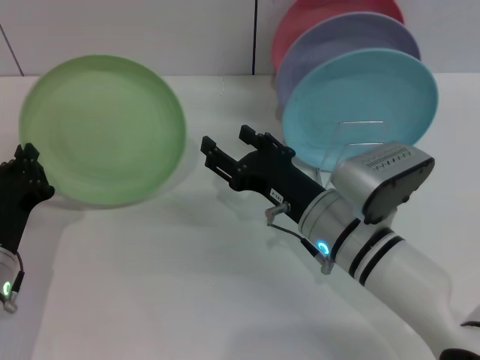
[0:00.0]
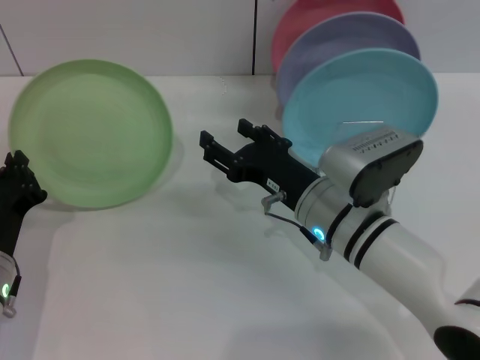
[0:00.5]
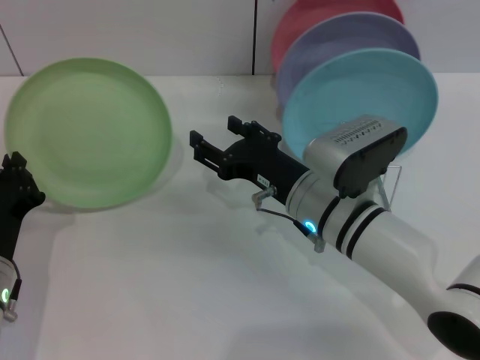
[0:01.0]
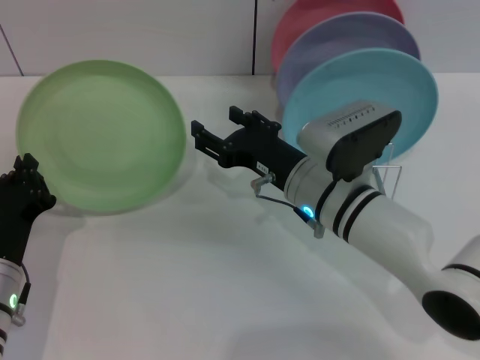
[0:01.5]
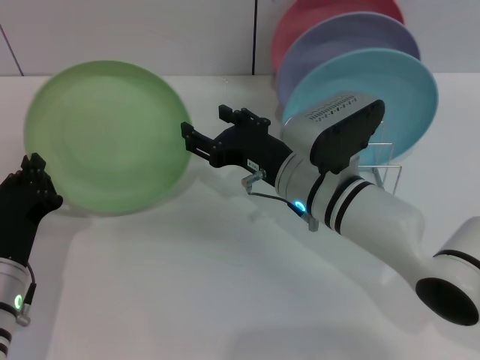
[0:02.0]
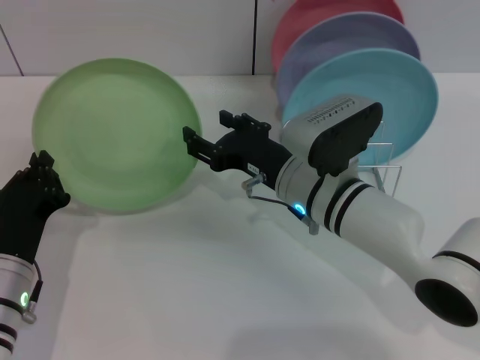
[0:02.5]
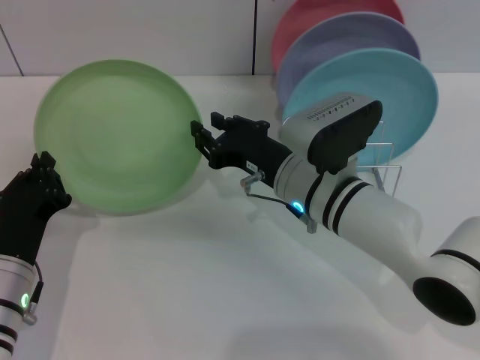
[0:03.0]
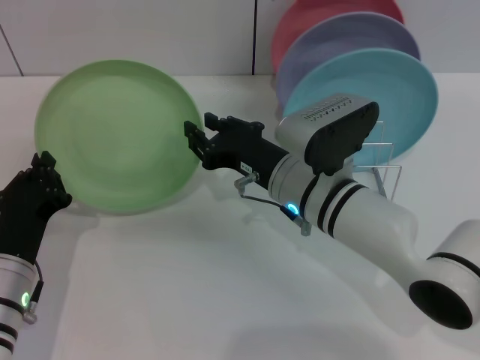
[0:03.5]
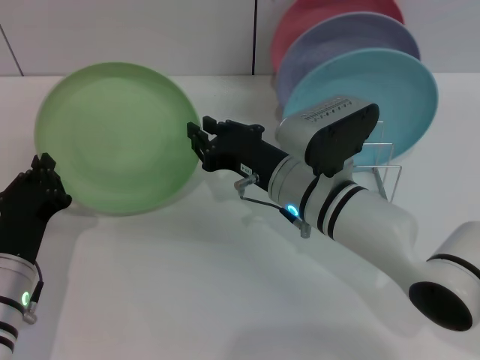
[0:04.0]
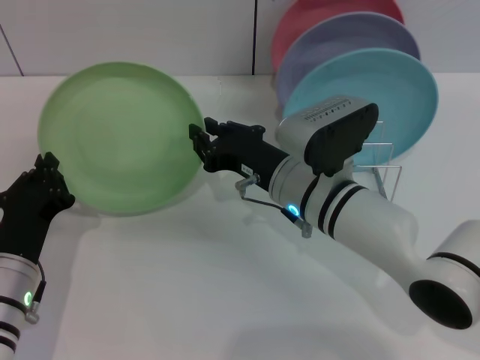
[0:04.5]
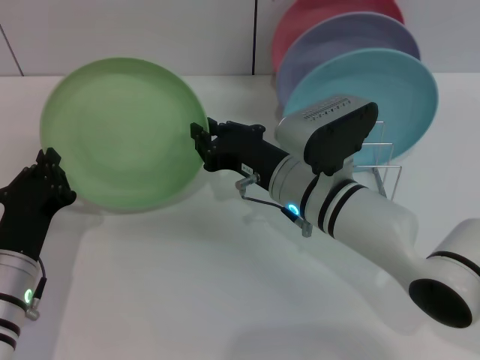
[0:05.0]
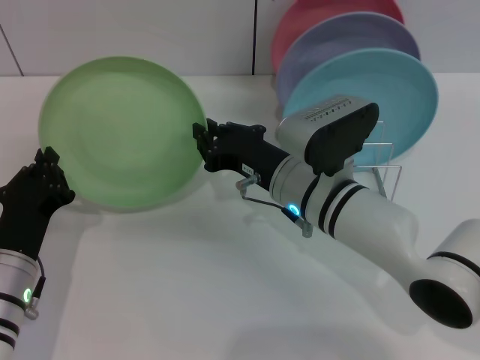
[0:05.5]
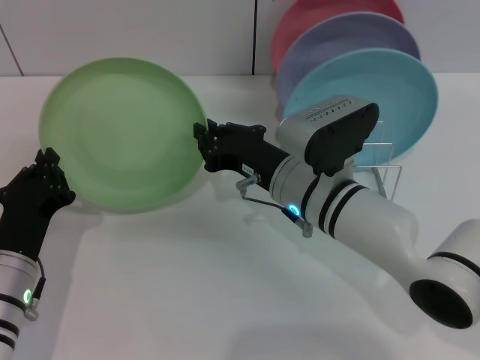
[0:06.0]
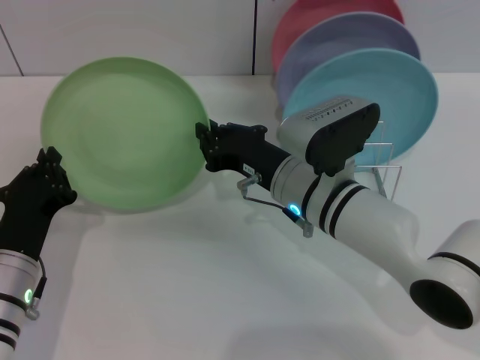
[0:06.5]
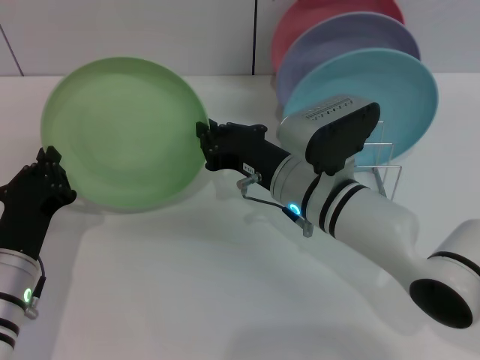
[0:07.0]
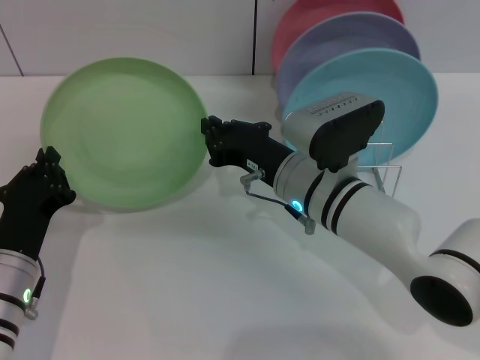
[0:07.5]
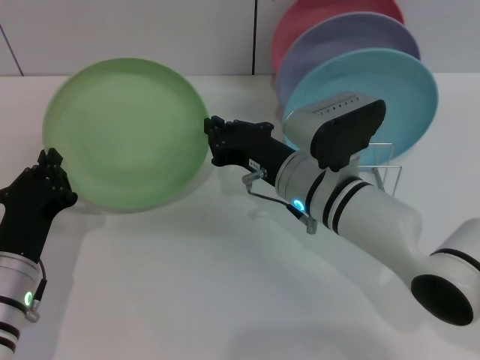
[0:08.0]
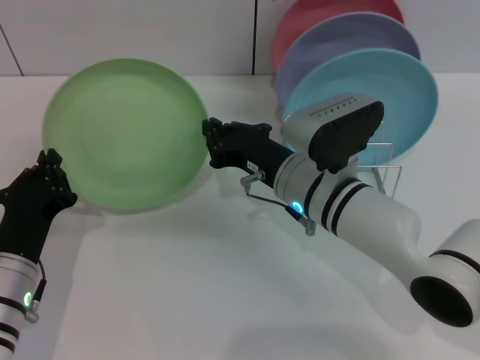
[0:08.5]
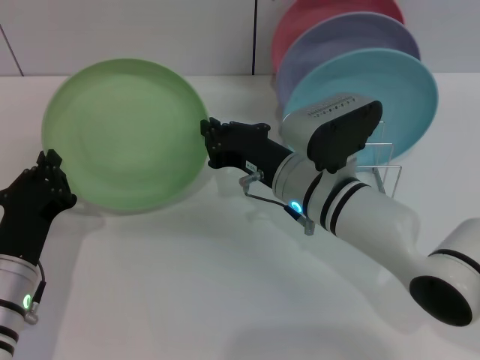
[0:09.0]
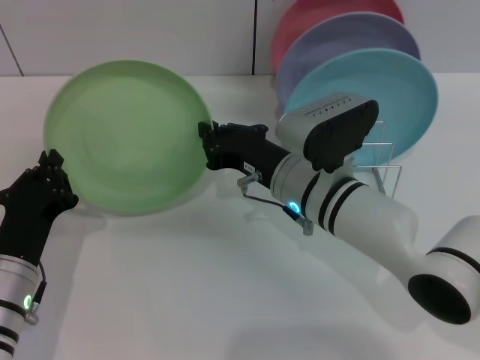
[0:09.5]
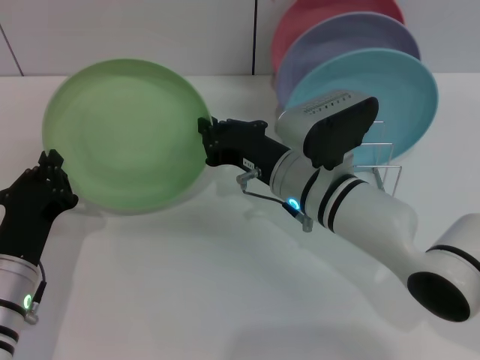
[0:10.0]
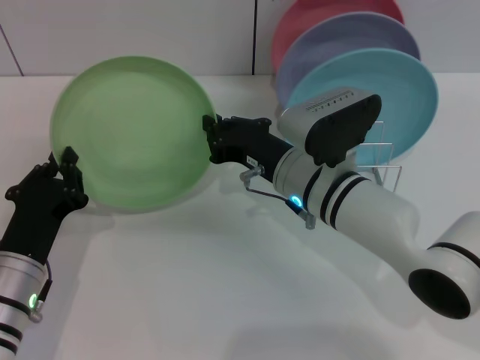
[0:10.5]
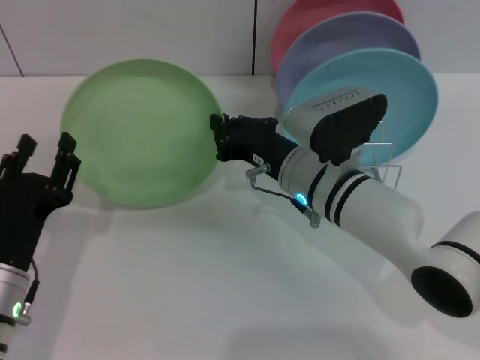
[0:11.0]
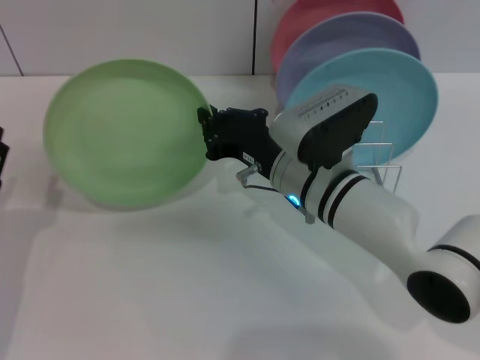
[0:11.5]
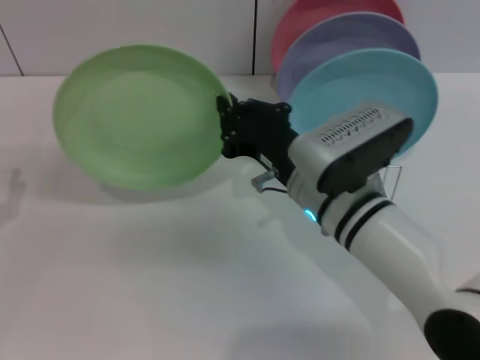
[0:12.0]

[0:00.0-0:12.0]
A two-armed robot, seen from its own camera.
Task of the whole recording: Grip the plate with one hand, pass it to the other, then set it on the shelf.
Step, 0:00.0 to 0:11.5: Pass the plate from the left gripper to the right gripper.
0:00.0 to 0:02.0: The right gripper ends up some 5 cm from where it was.
0:02.0 to 0:04.0: The right gripper closes.
0:04.0 to 0:10.0: The two grippers keep their place.
0:10.0 to 0:12.0: The left gripper shifts about 10 cm to the left, and opens.

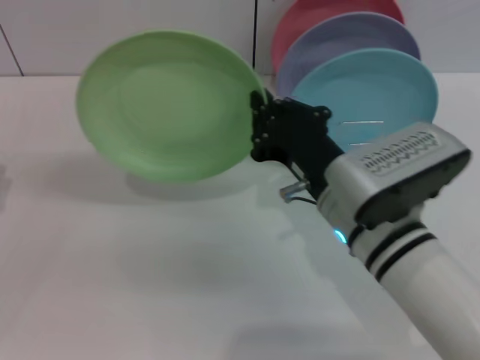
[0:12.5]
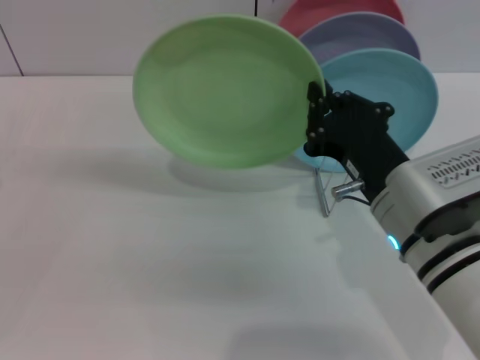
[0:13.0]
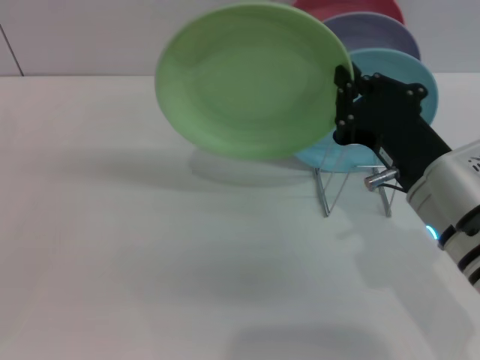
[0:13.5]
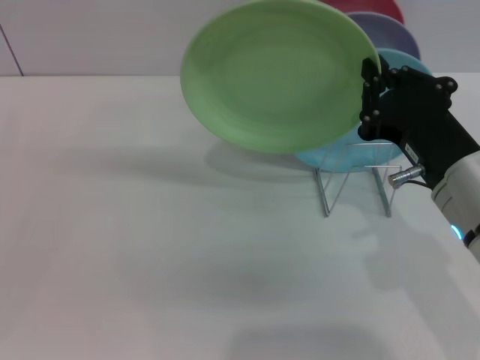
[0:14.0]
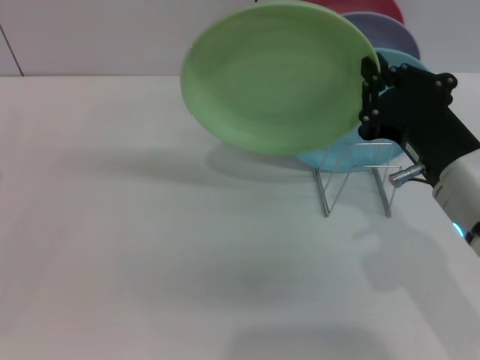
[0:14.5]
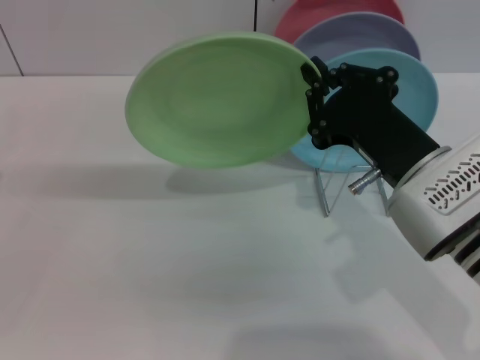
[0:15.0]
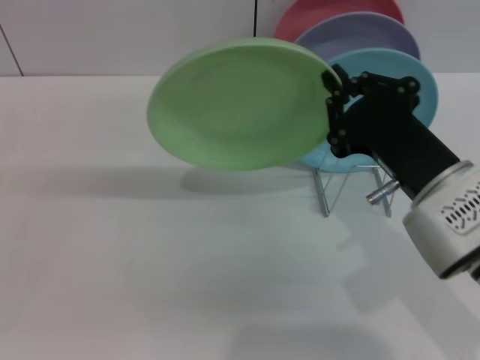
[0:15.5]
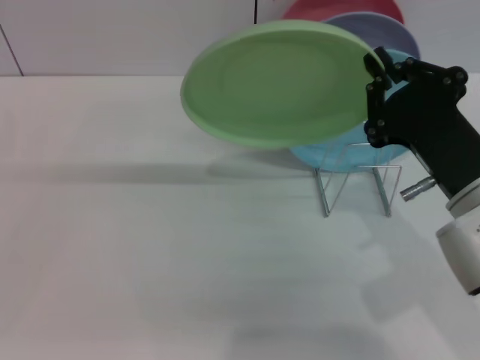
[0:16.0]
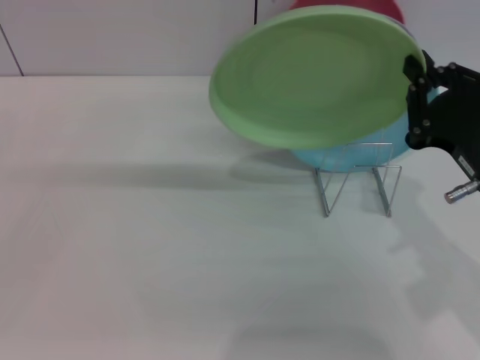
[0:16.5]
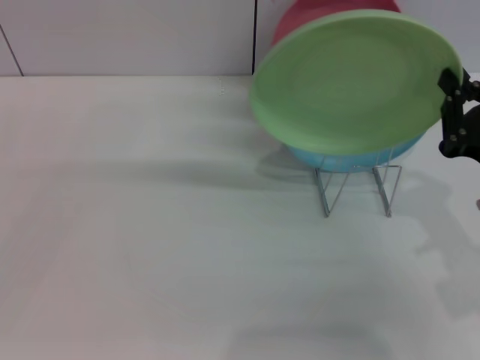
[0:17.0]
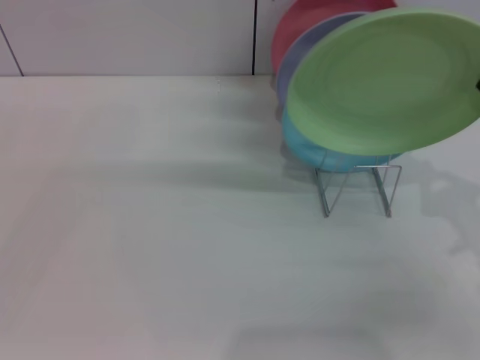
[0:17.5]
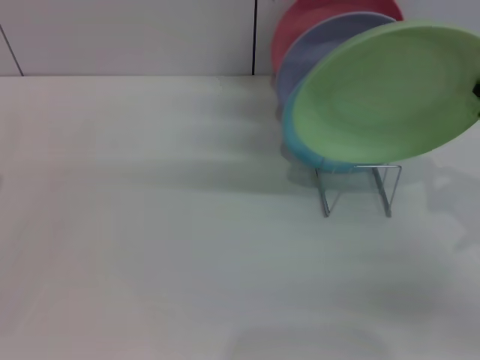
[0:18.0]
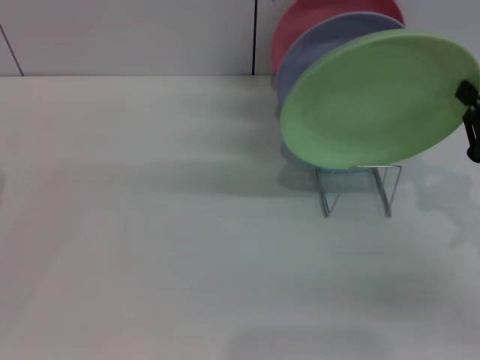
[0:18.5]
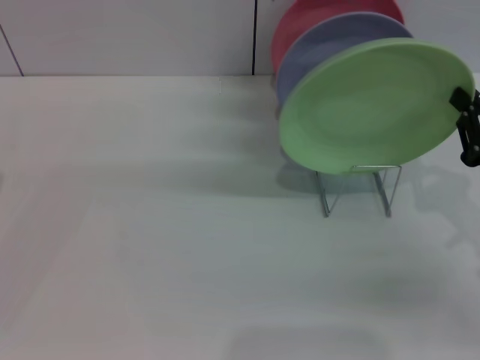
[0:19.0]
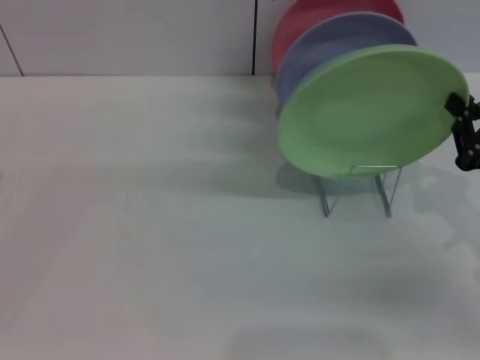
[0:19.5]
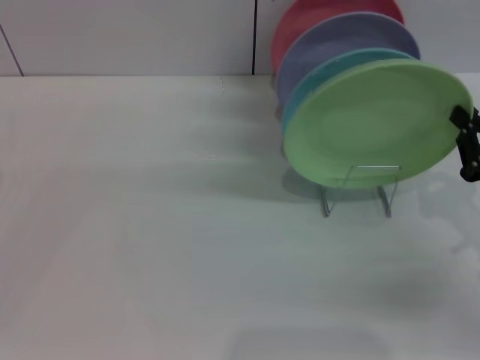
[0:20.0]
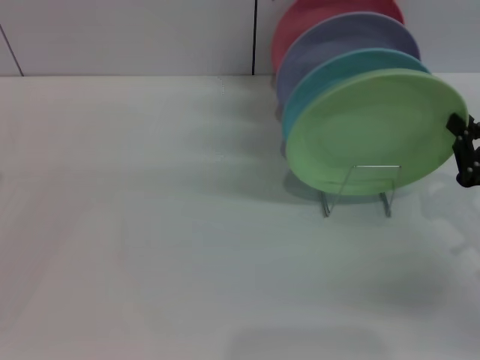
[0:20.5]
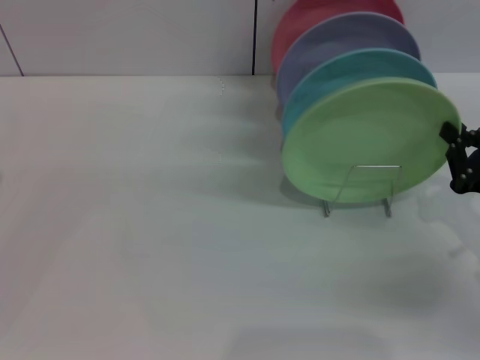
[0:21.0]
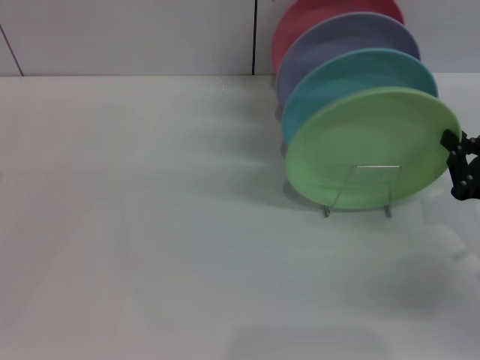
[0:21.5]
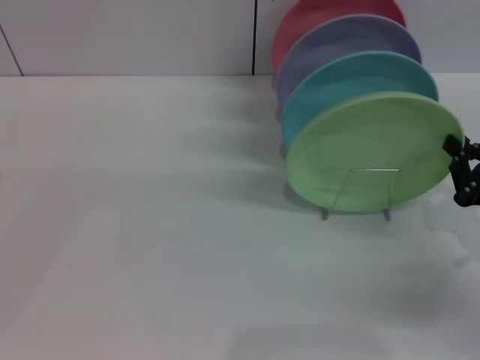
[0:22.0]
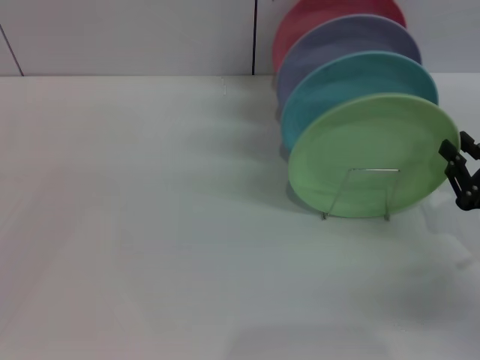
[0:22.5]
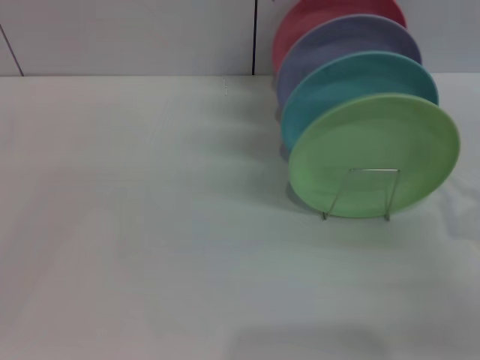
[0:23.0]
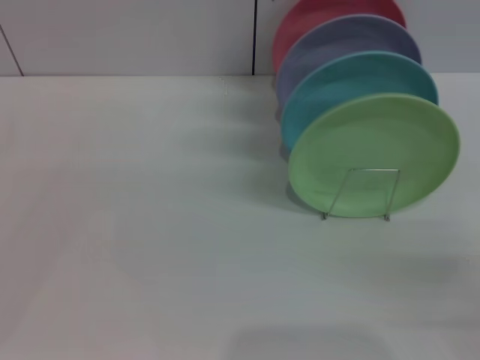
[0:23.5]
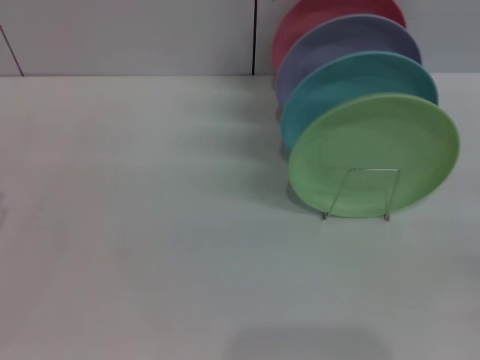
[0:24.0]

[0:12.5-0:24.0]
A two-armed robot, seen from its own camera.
Task of the whole recording: Grip the plate with one hand, pass it to the other, then set it on the shelf.
Step, 0:12.5 to 0:22.5: Place the plate on the shelf with the right gripper.
0:12.5 to 0:14.5: The right gripper travels to the right by roughly 5 cm.
0:14.5 to 0:16.5: The grippers make only small movements.
0:16.5 to 0:18.5: The right gripper travels to the right by about 10 cm.
0:18.5 to 0:22.0: The grippers make only small movements.
0:22.0 to 0:24.0: The right gripper travels backward and to the right by roughly 15 cm, and opens.
